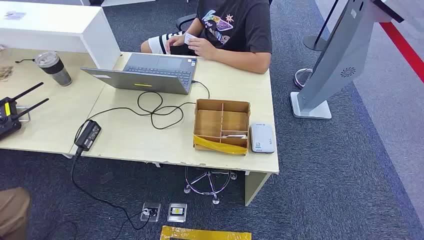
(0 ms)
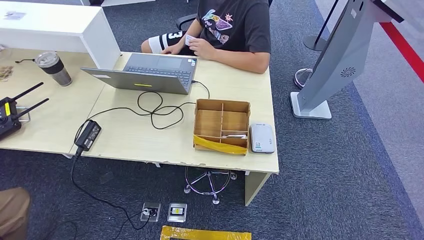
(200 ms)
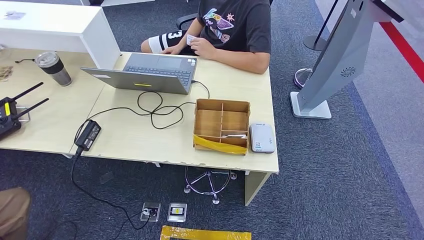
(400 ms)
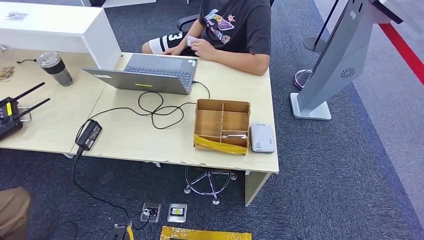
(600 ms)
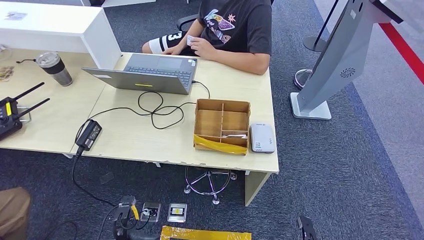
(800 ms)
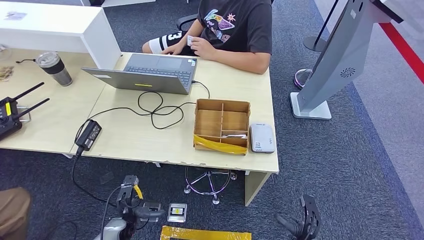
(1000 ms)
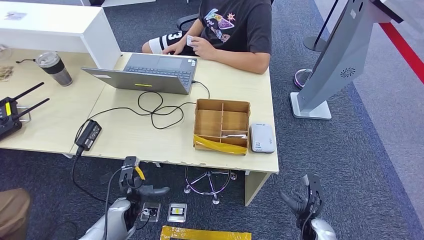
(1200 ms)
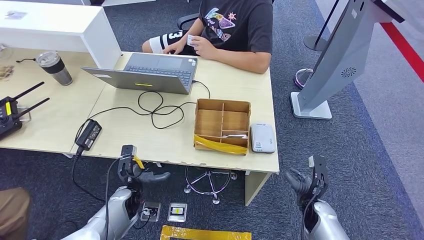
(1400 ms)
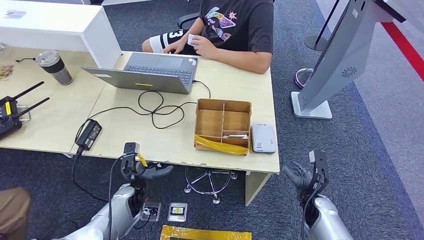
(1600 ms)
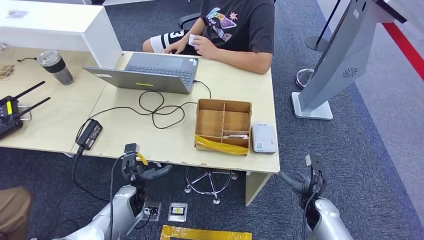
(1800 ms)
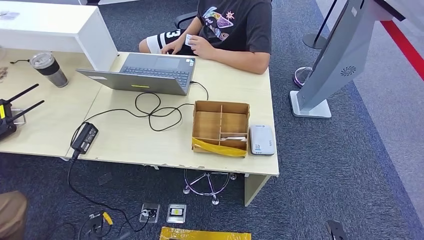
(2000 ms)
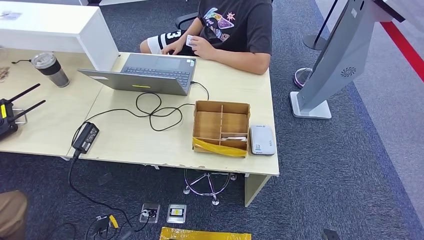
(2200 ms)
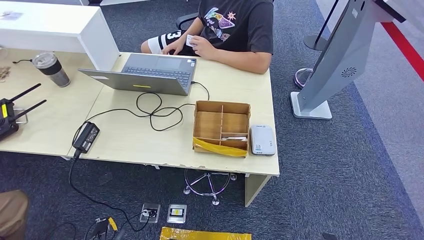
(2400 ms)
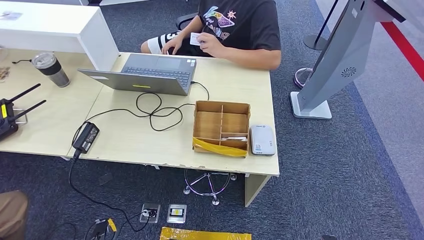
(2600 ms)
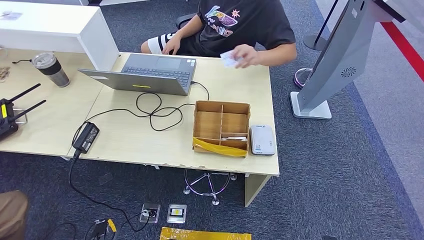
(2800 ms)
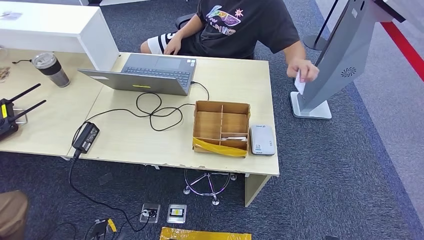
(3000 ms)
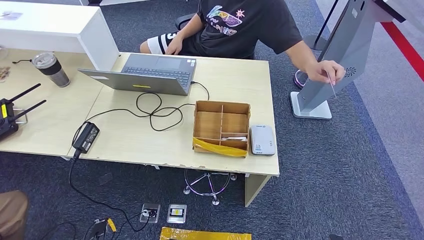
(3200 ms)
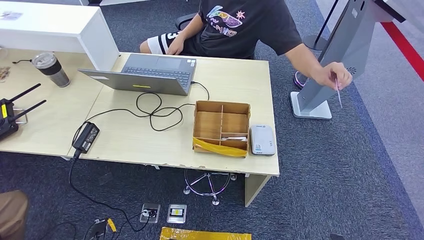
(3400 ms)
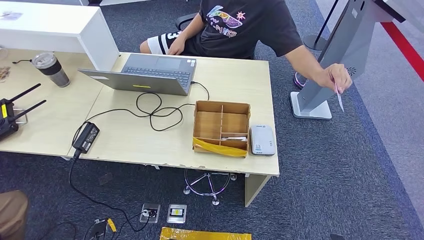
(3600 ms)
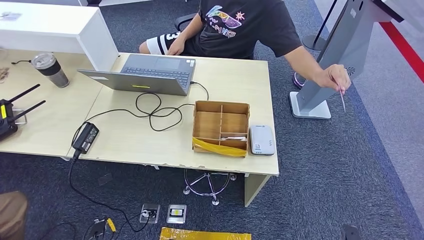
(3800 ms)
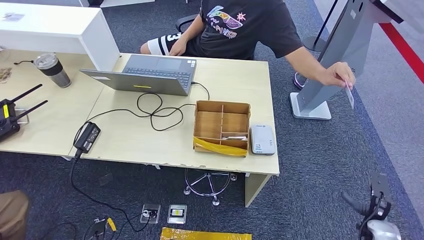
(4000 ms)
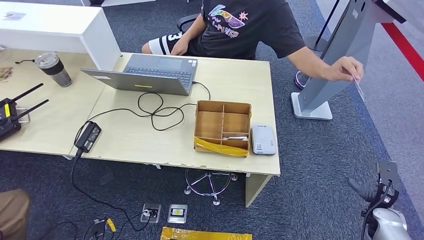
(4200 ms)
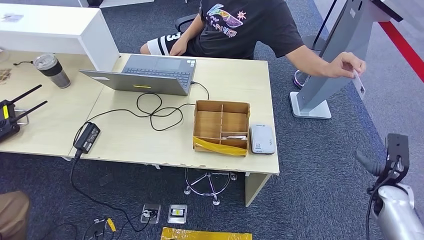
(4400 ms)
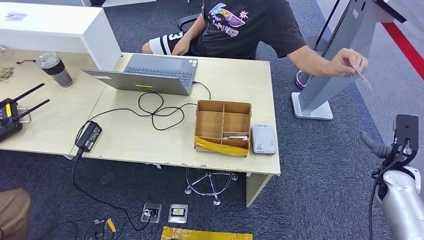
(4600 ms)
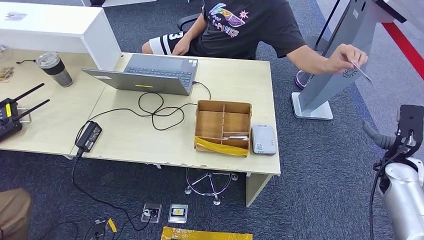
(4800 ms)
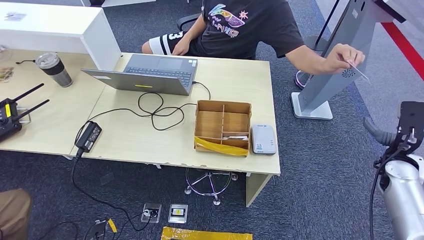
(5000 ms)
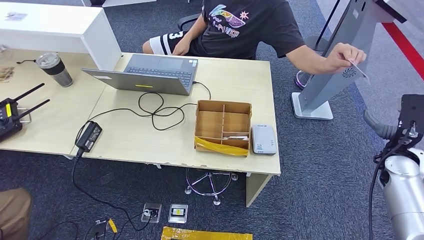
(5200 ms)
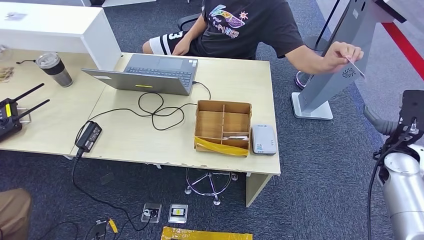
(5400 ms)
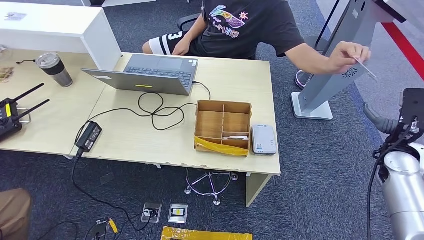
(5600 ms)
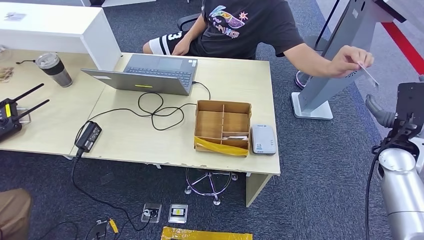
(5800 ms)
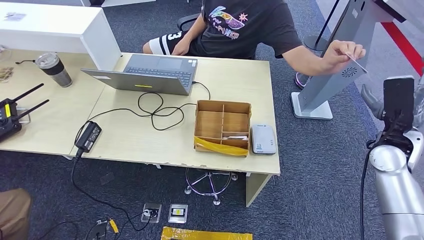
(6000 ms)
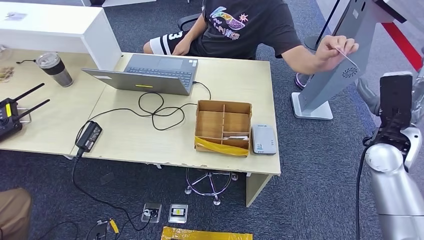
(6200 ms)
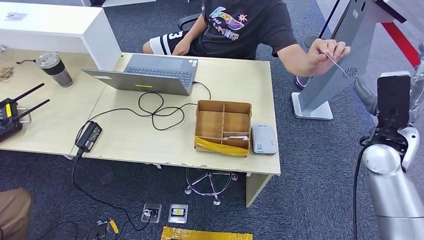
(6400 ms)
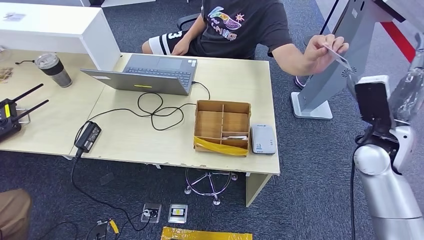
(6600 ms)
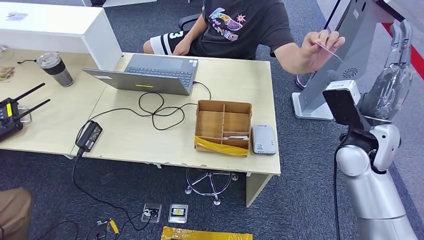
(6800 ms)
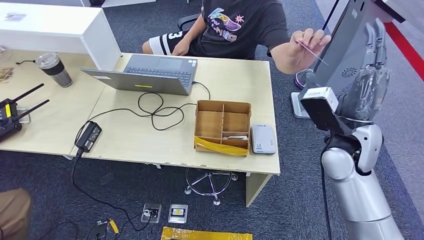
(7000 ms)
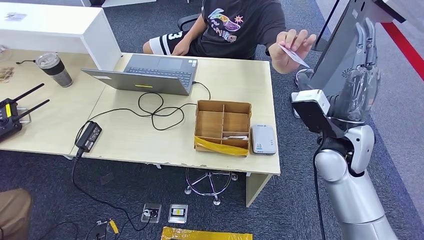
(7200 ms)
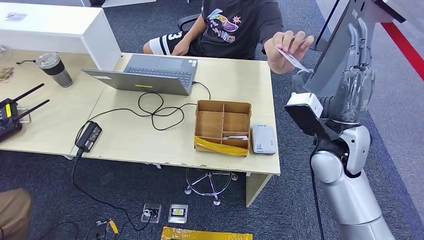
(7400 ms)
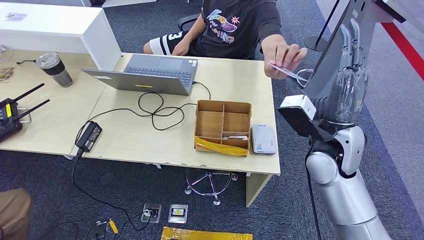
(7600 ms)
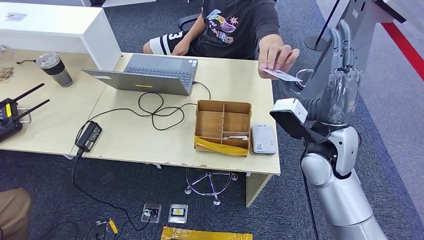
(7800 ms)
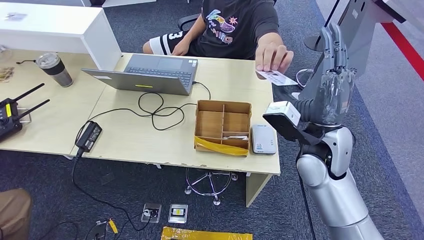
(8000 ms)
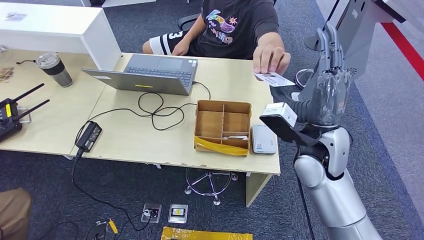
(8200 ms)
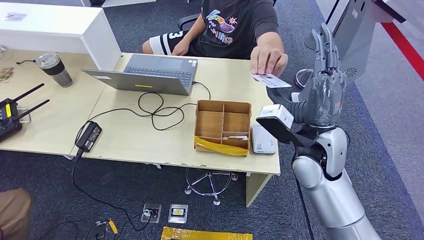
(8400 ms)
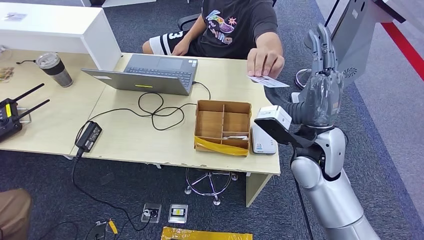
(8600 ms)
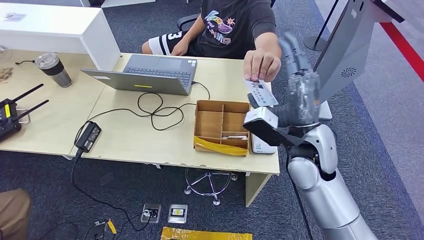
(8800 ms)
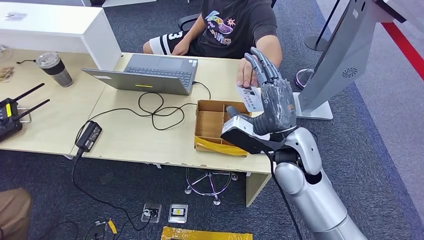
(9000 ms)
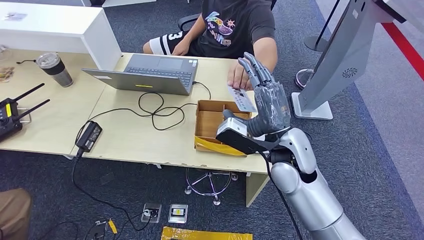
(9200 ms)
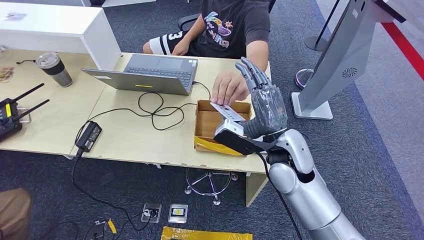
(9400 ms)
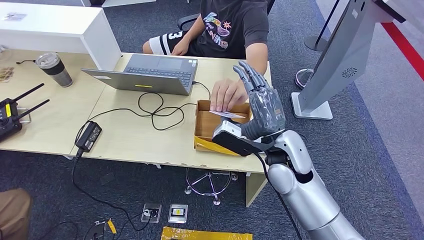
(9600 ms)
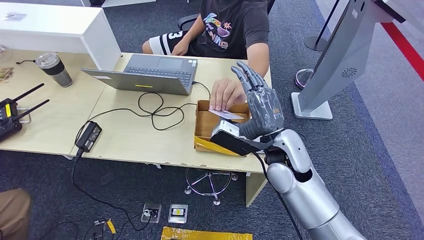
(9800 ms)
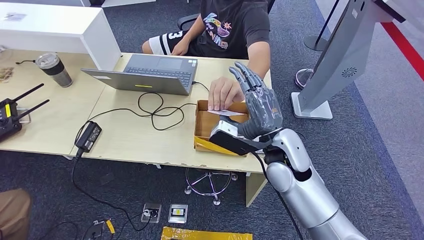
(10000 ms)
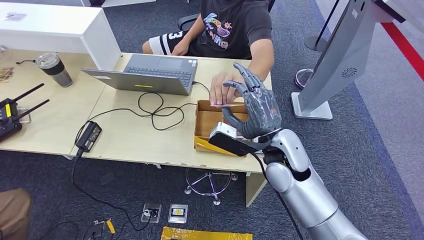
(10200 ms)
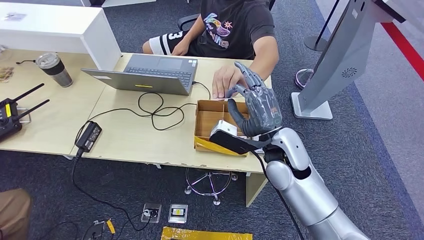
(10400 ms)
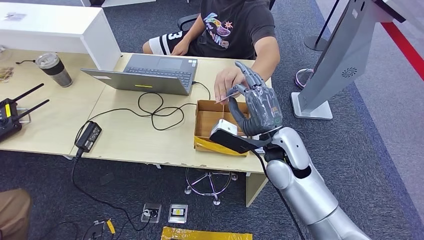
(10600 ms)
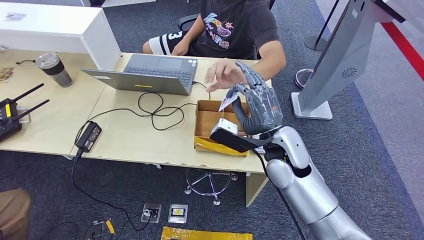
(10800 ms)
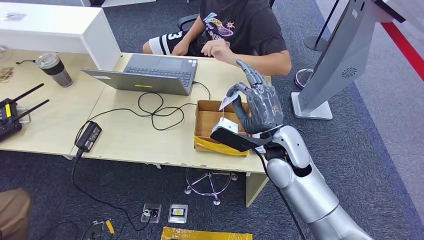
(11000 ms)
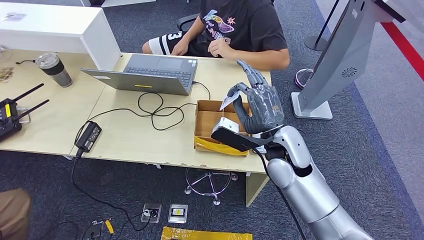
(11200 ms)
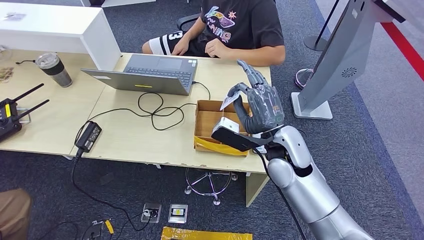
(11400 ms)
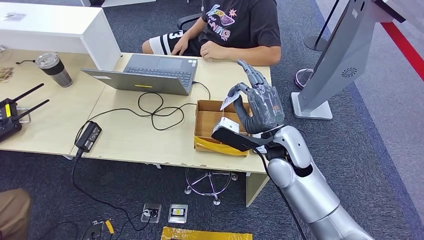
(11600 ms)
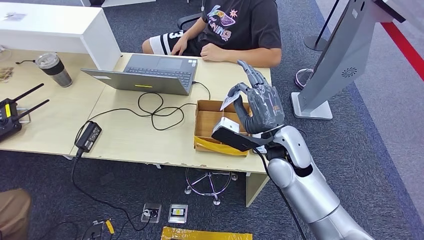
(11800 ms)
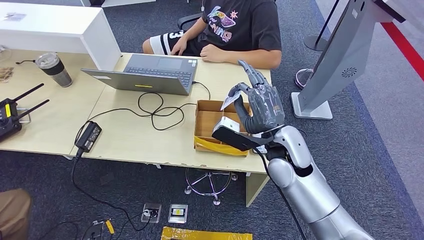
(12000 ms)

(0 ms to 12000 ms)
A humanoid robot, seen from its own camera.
Step, 0 ms - 10800 ms: Take the ID card from the person's hand.
3000 ms - 4400 ms: The right hand heads forward and upward, covering about 25 cm.
4400 ms - 6000 ms: The right hand is displaced upward, forward and to the left by roughly 20 cm.
6000 ms - 7600 ms: The right hand is displaced to the left by roughly 15 cm.
7600 ms - 9000 ms: The right hand travels to the left by about 10 cm.
9000 ms - 10400 ms: There are only small adjustments of the hands.
10400 ms - 12000 ms: Both hands stay about where they are.

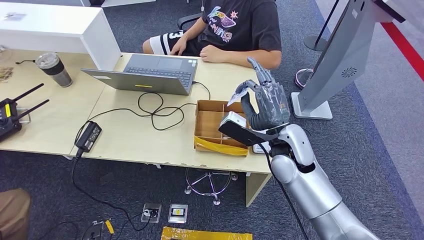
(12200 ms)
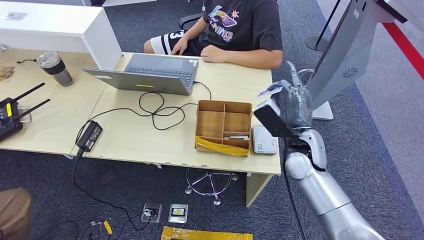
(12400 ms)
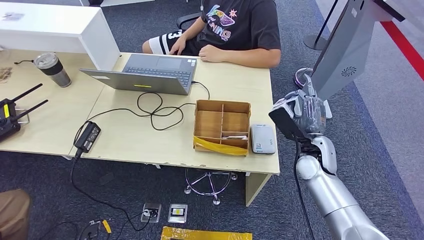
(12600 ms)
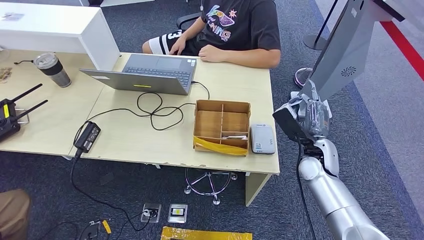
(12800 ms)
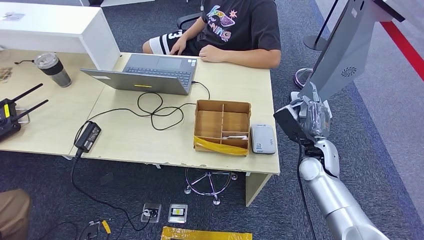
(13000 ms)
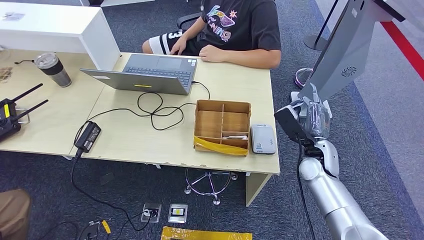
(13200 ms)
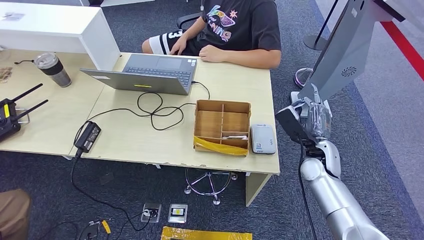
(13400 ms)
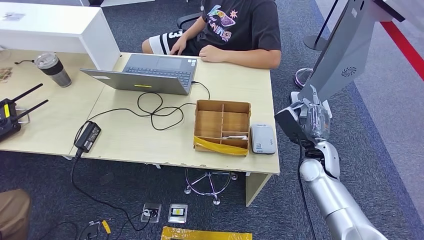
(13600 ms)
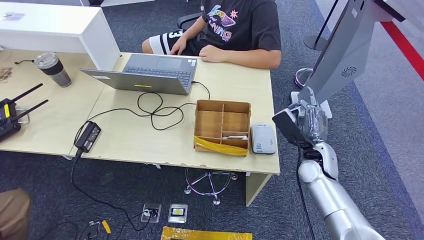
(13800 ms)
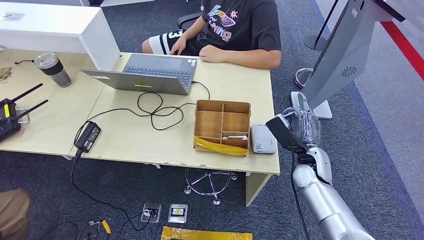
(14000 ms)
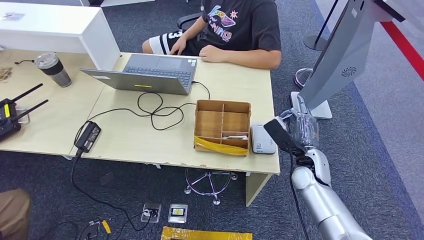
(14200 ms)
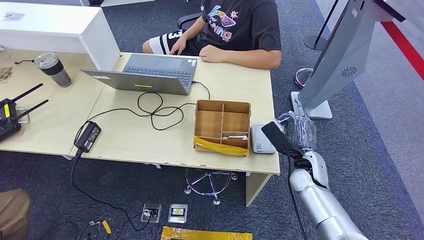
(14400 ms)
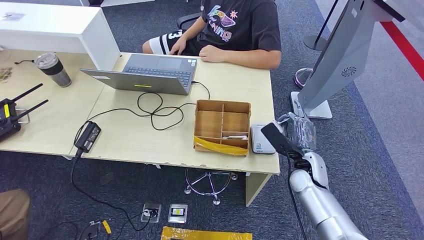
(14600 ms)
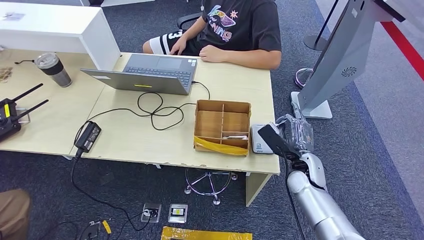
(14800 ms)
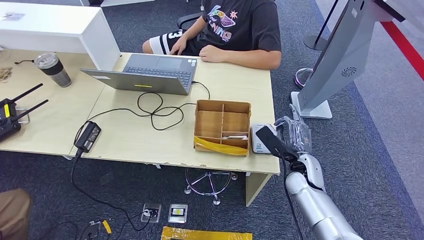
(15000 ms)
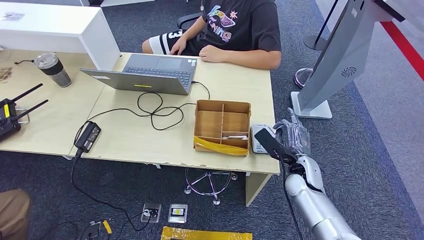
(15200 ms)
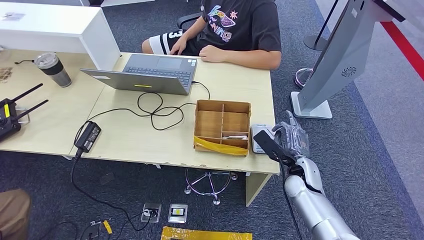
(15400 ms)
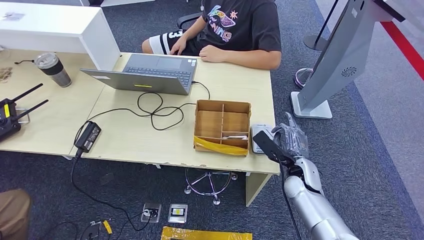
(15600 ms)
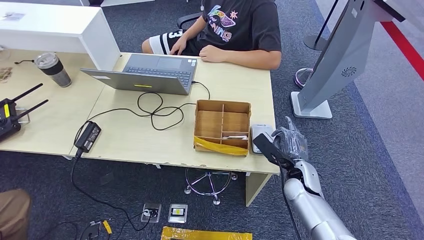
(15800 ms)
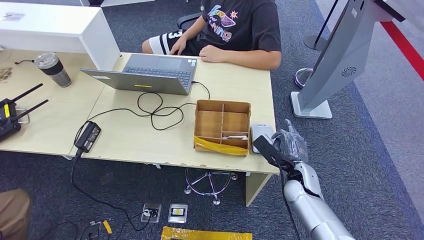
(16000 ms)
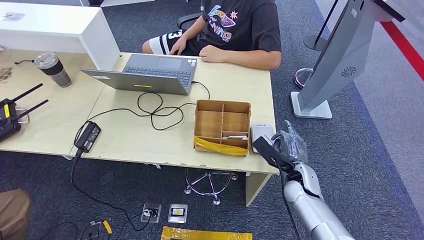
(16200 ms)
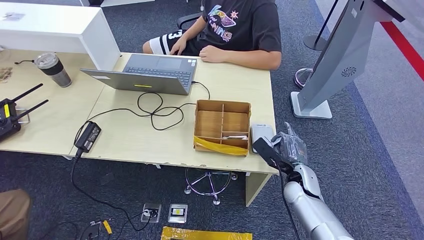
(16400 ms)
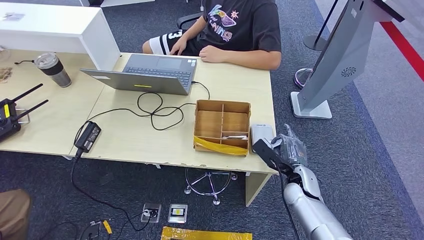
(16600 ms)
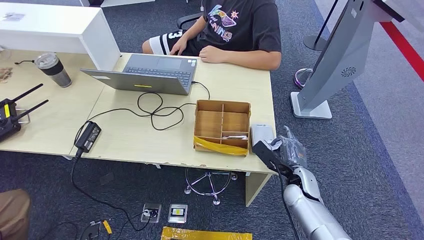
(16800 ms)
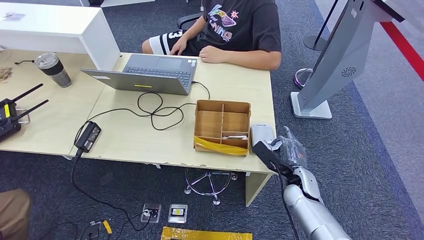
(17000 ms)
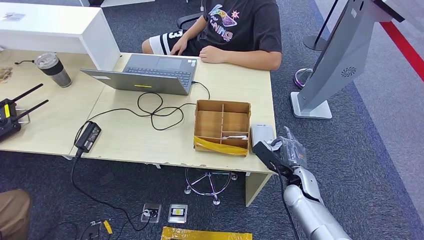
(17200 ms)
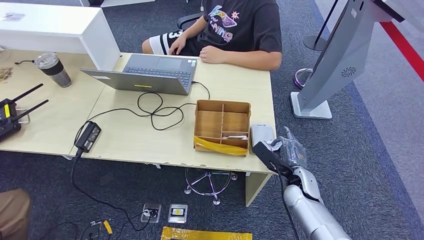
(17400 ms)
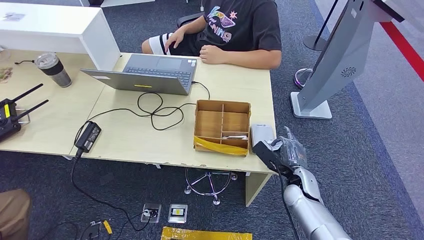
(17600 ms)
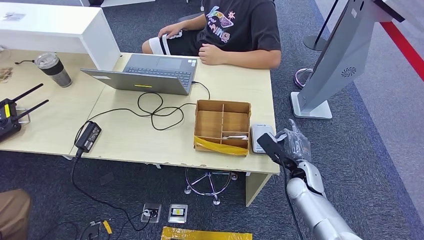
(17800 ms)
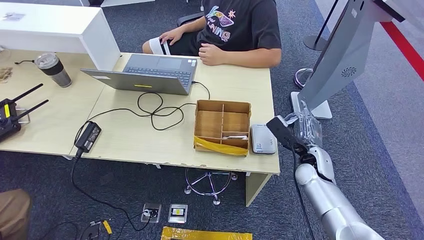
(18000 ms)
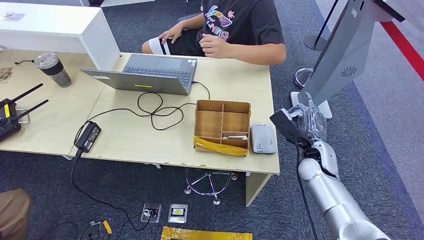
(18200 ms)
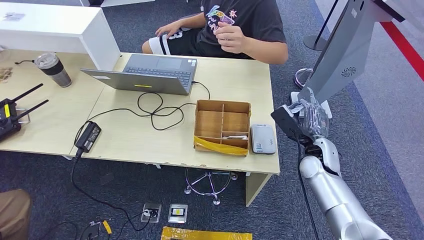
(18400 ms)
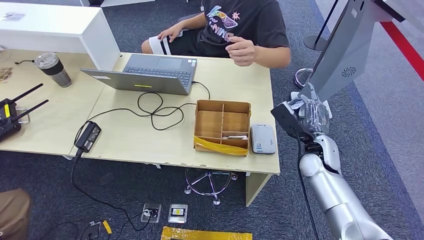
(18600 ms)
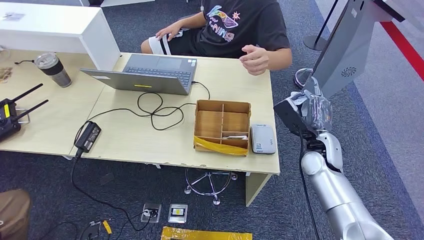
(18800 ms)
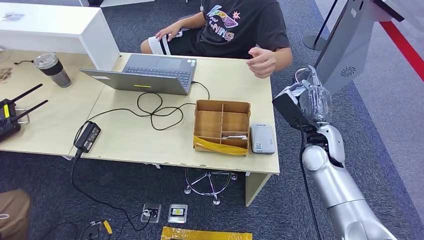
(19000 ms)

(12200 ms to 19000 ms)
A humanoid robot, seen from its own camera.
Step, 12200 ms - 16200 ms: Place the ID card on the card reader.
12200 ms - 13600 ms: The right hand is displaced to the right and downward by some 15 cm.
13600 ms - 15000 ms: The right hand changes place by some 5 cm.
15000 ms - 17600 ms: The hands stay close to where they were, moving slightly.
17600 ms - 19000 ms: The right hand travels upward and forward by approximately 15 cm.
